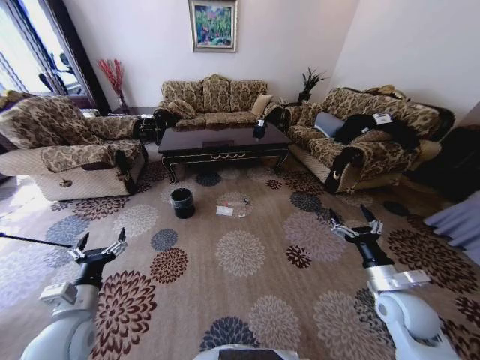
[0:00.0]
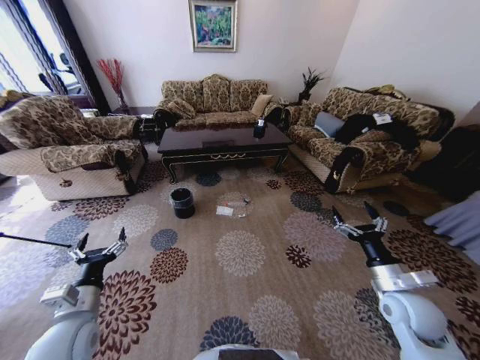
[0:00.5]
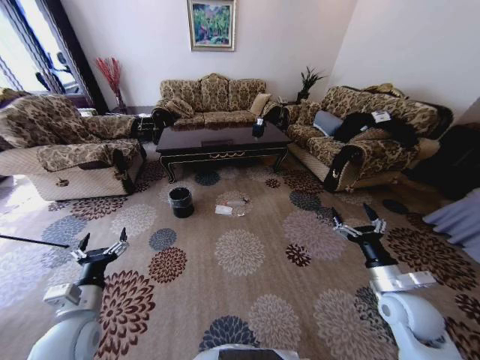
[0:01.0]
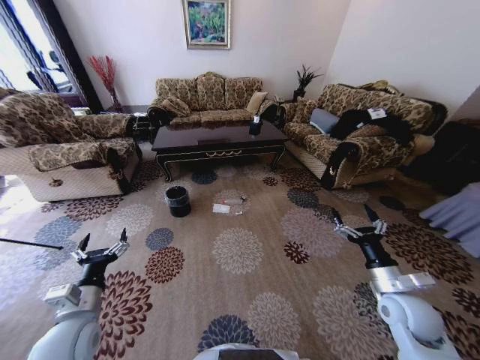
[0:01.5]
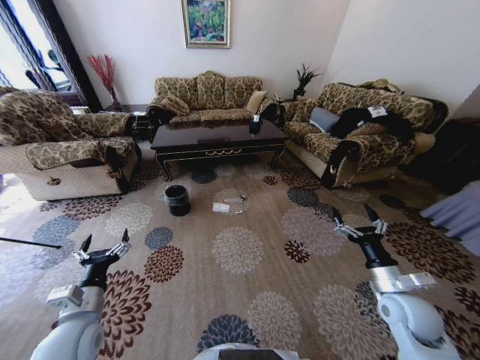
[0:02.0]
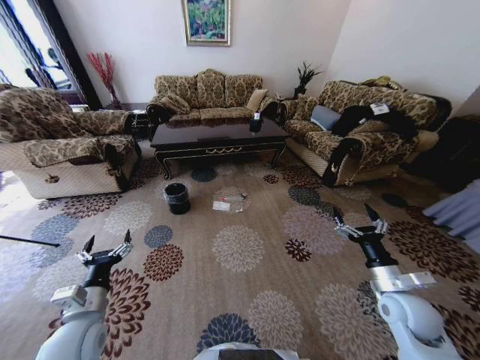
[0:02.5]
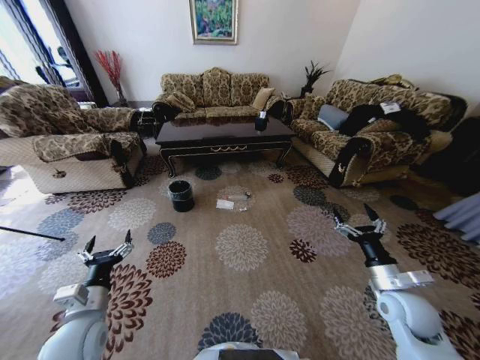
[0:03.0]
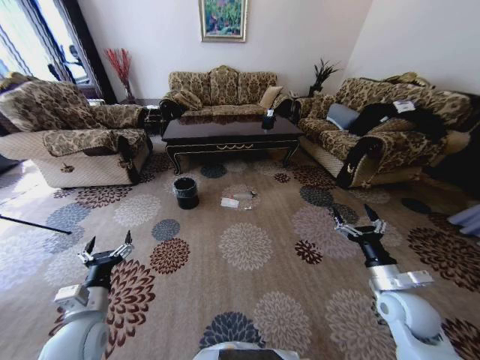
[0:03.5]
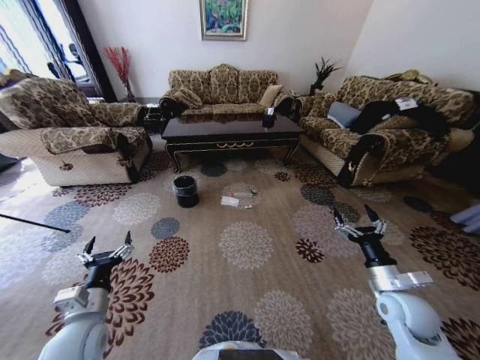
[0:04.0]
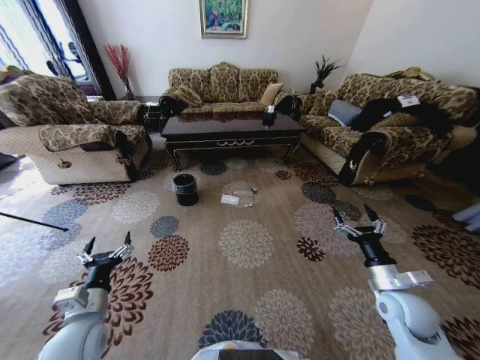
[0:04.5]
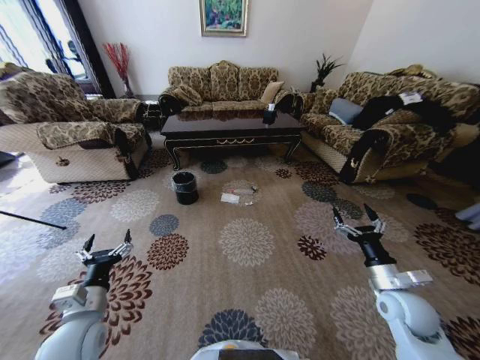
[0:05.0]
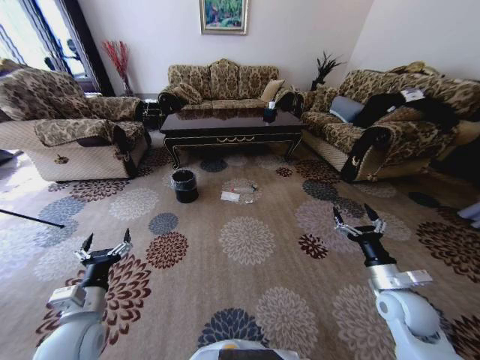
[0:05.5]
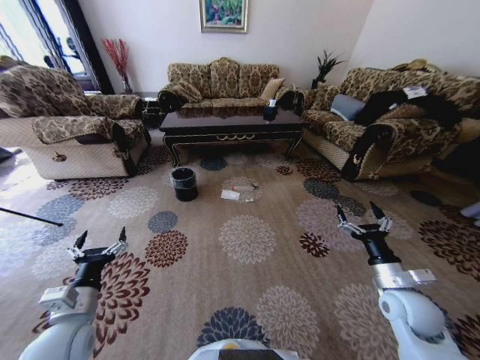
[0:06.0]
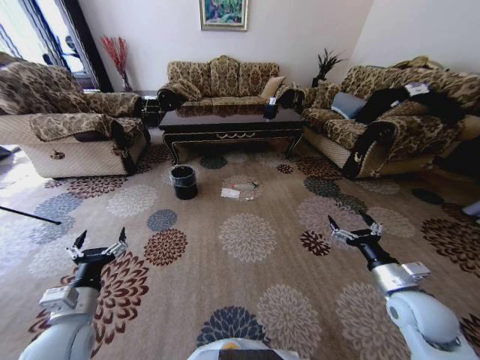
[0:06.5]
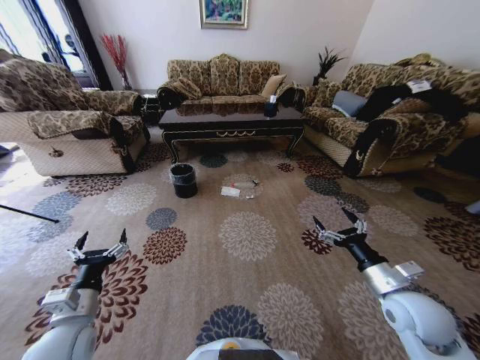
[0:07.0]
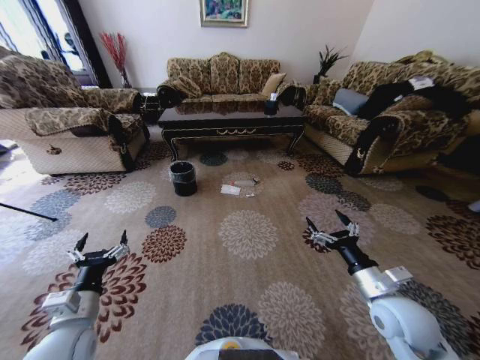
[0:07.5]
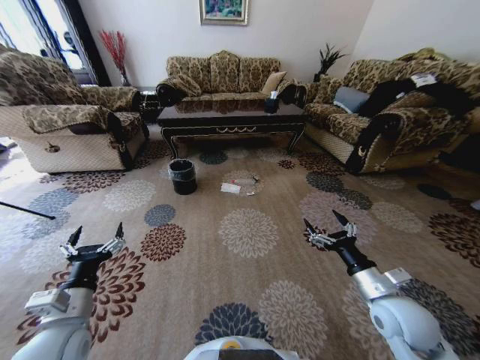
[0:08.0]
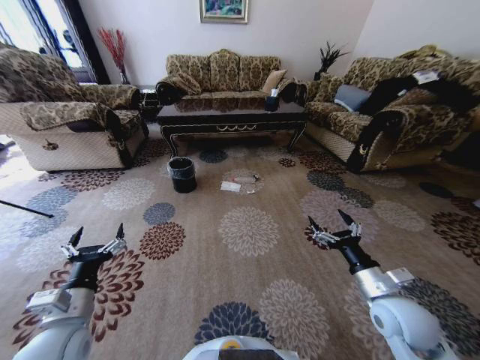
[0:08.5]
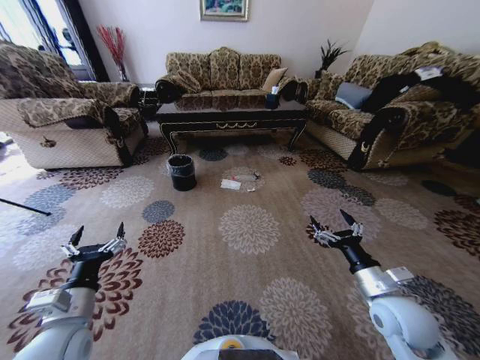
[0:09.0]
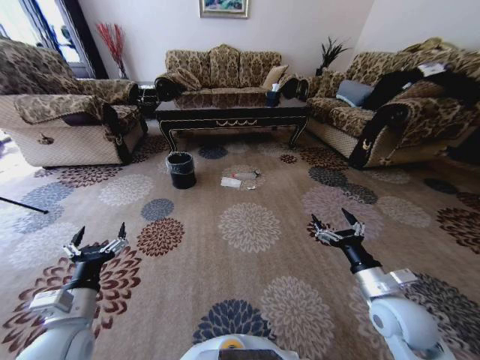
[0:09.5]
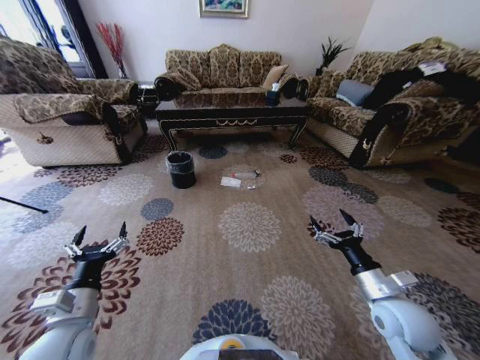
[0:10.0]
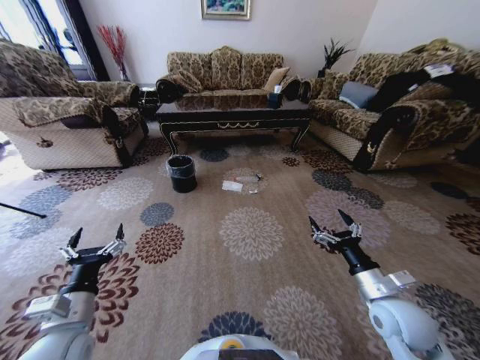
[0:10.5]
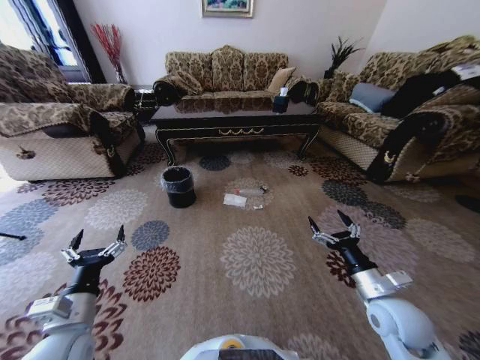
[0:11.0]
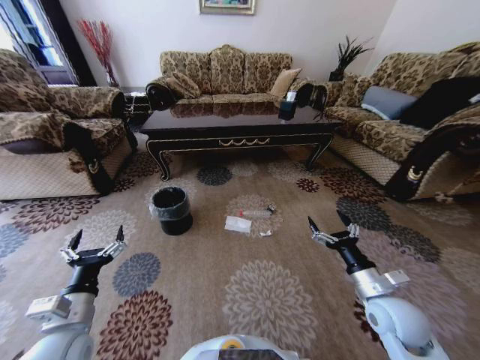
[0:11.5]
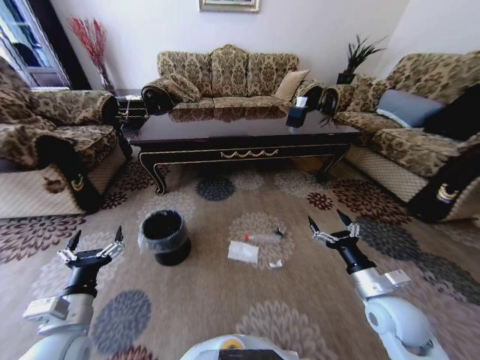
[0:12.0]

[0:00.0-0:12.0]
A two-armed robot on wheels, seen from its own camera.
Task of the whole recording: Move to the front of the table and pick up the trash from the floor, then place it into the trash bin.
0:06.0 to 0:08.0: The right gripper travels to the left by approximately 5 cm.

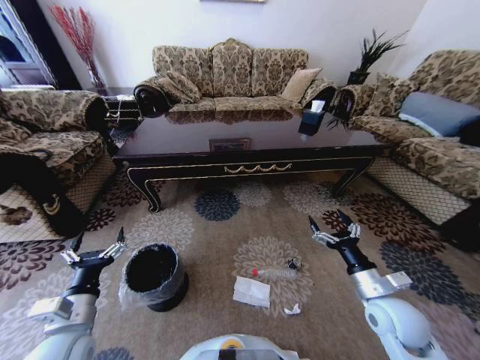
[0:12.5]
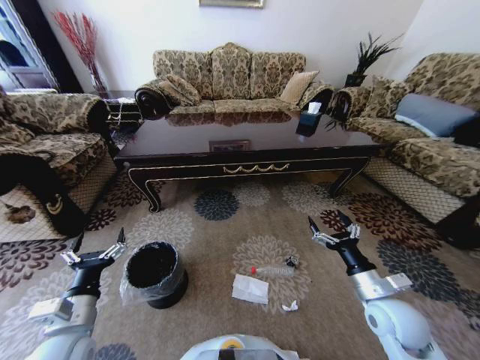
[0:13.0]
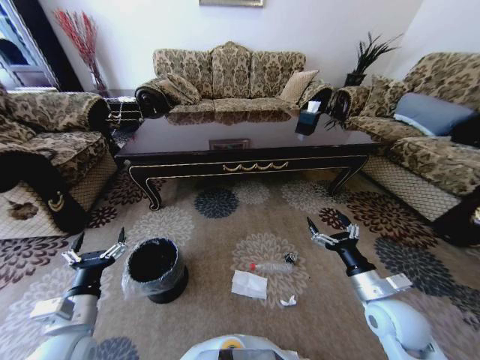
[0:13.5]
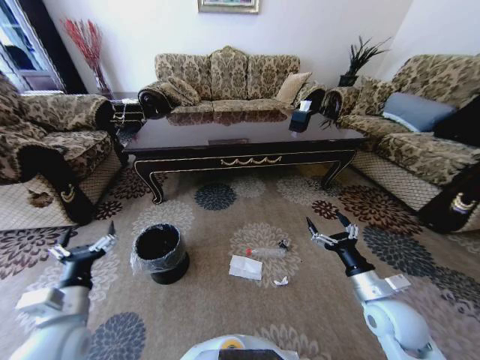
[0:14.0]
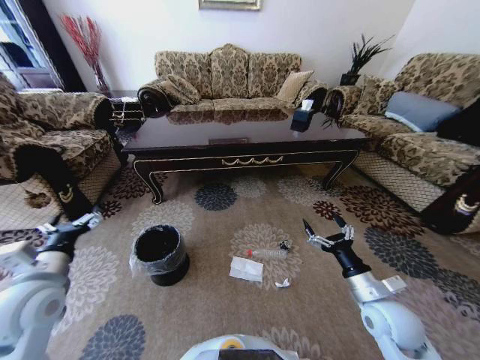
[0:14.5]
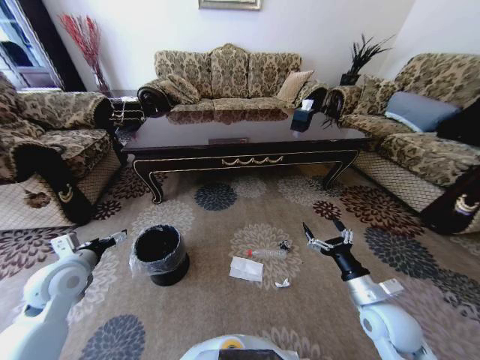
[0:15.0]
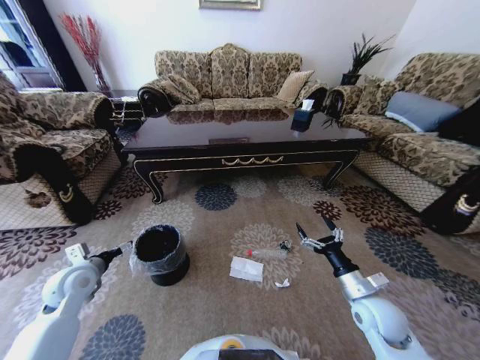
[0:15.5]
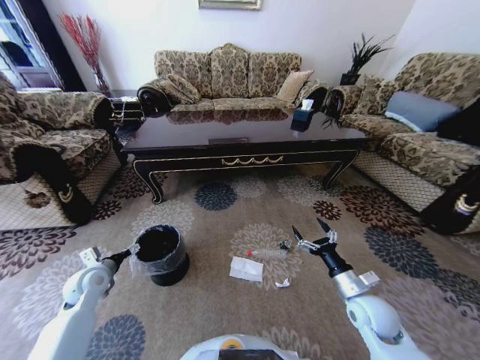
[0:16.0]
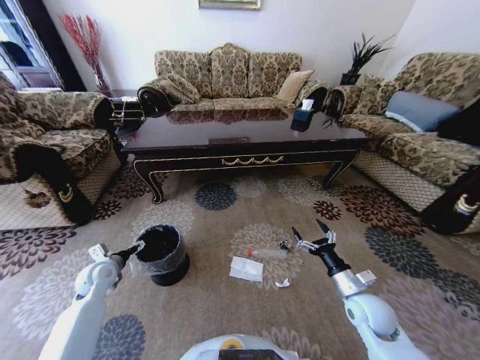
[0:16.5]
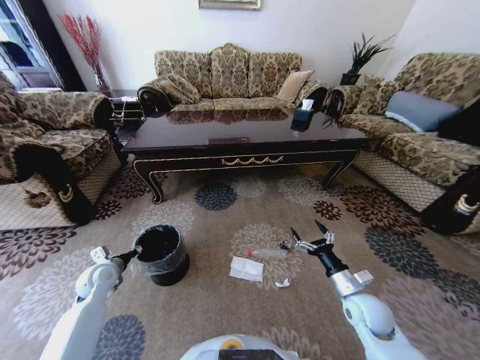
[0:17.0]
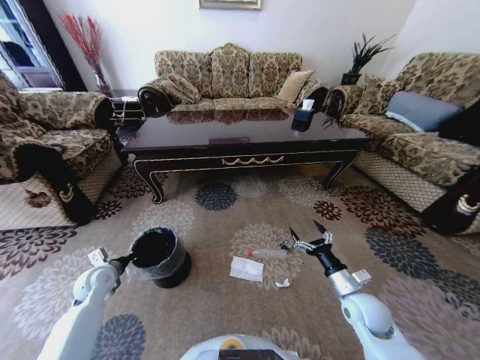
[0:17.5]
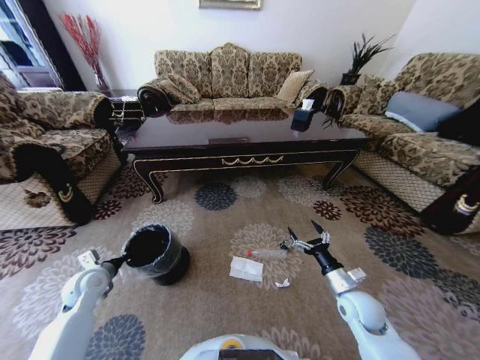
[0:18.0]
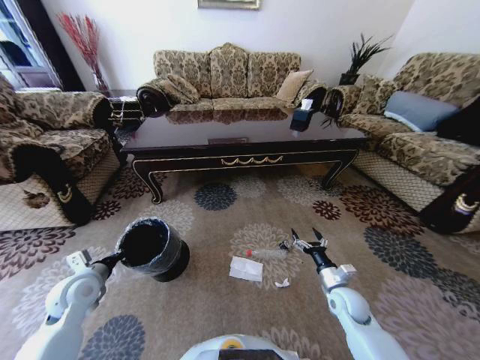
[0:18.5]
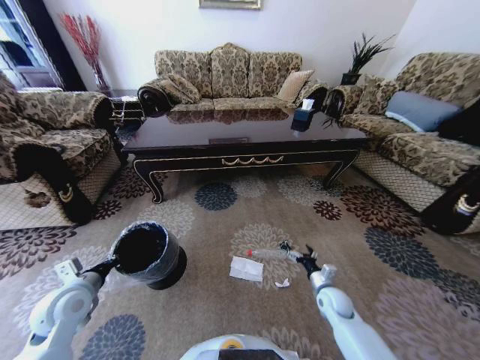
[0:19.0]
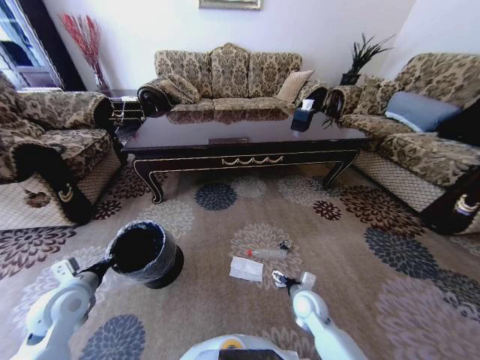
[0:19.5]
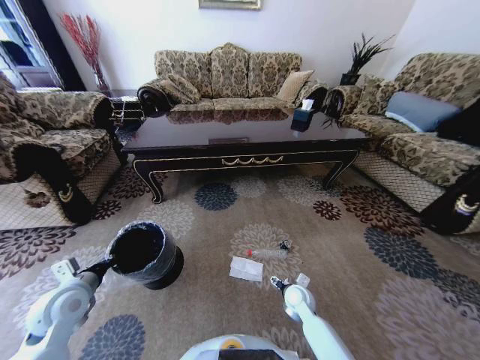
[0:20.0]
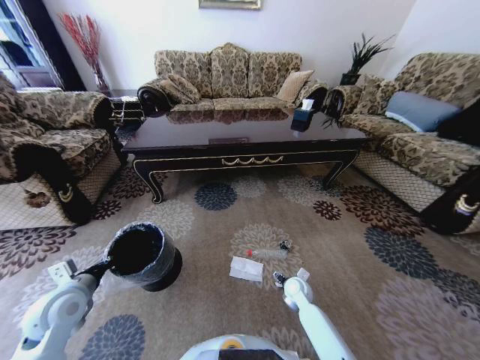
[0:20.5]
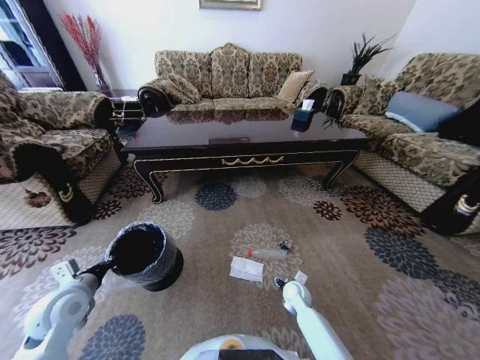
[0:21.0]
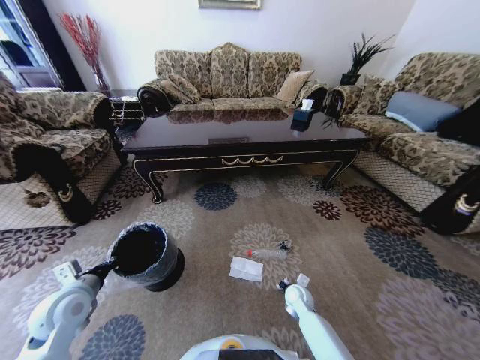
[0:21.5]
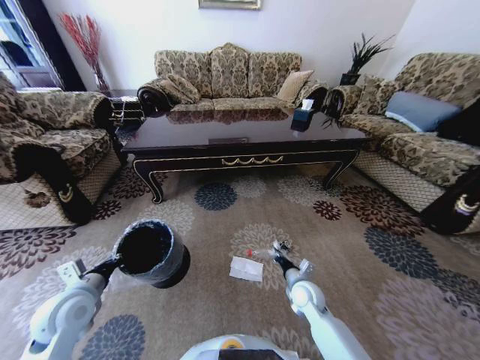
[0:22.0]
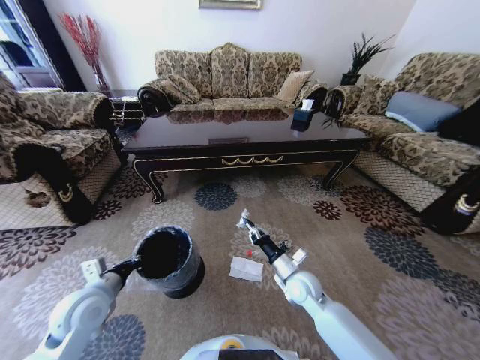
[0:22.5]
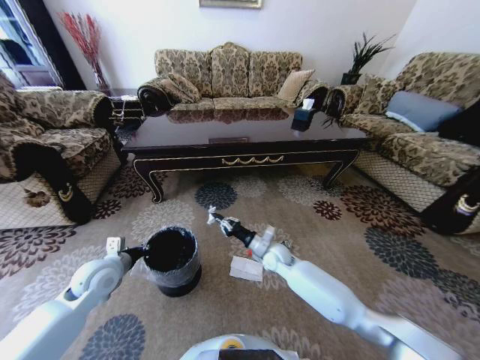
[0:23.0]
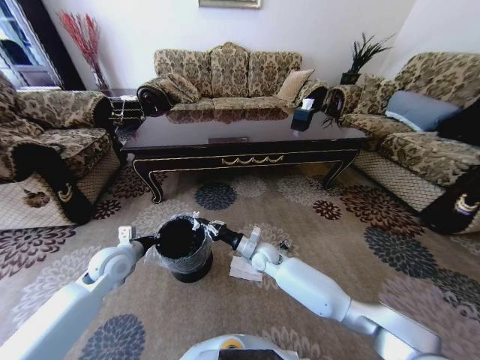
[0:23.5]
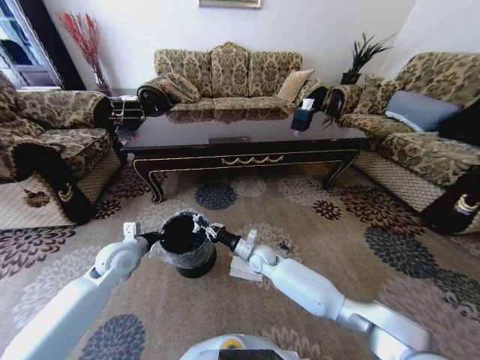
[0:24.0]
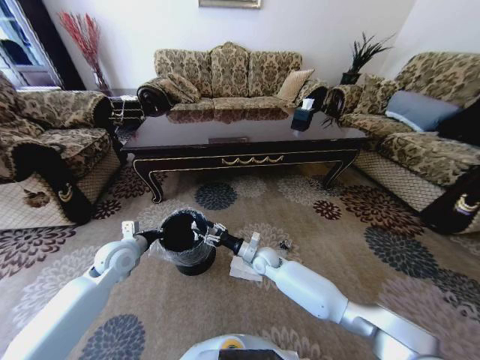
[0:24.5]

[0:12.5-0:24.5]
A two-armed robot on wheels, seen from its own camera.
Task of the whole recording: Move to the front of the table and pick up the trash from the floor, then place it into the trash bin.
0:12.5 to 0:14.5: The left gripper shifts roughly 10 cm upward, forward and to the left.
0:14.5 to 0:16.5: The left gripper heads downward and forward, covering some 20 cm, while the right gripper heads downward, covering some 5 cm.
0:16.5 to 0:18.5: The right gripper moves downward, approximately 5 cm, while the left gripper heads backward and upward, covering roughly 10 cm, and closes up.
0:18.5 to 0:20.5: The right gripper heads to the left, downward and forward, covering roughly 15 cm.
0:20.5 to 0:22.5: The left gripper travels to the right by some 5 cm, while the right gripper shifts approximately 15 cm upward, and closes.
0:22.5 to 0:24.5: The right gripper moves forward and to the left, about 15 cm, and opens; the left gripper shifts some 10 cm forward.

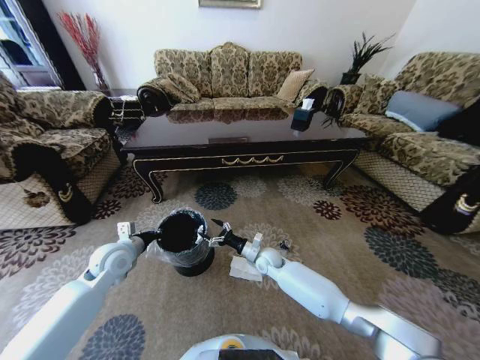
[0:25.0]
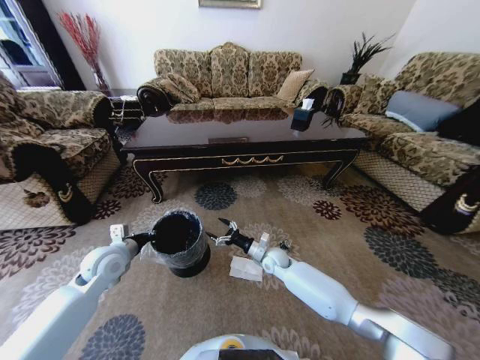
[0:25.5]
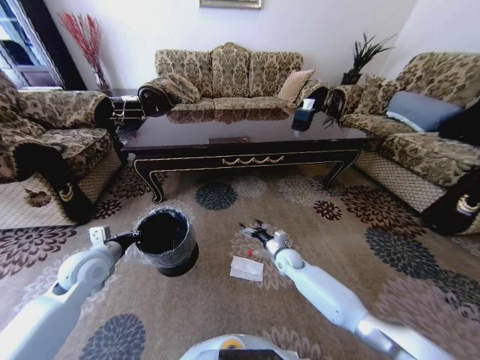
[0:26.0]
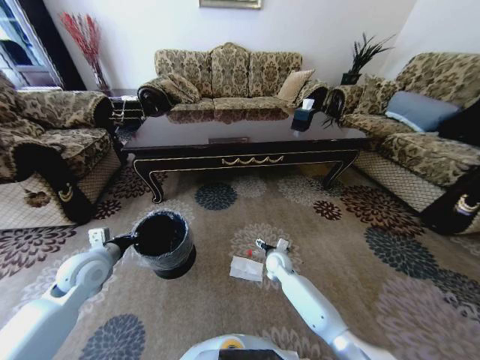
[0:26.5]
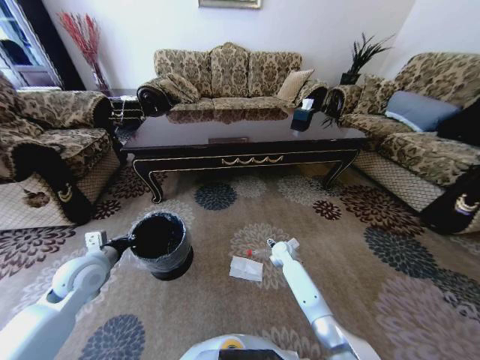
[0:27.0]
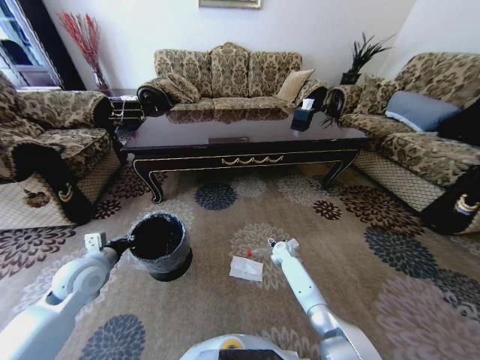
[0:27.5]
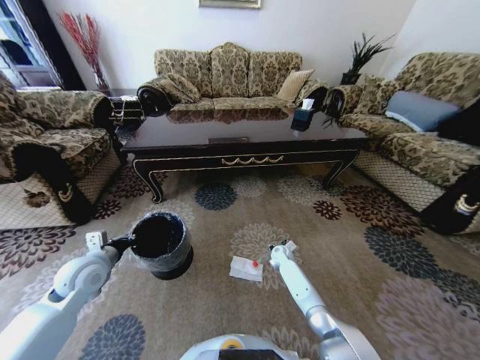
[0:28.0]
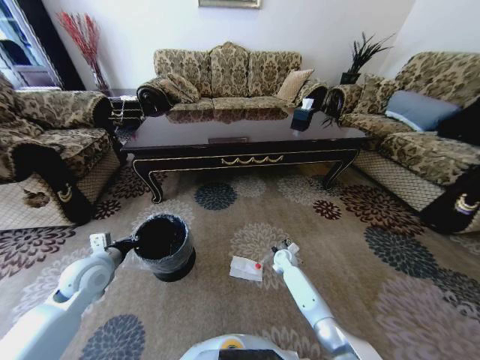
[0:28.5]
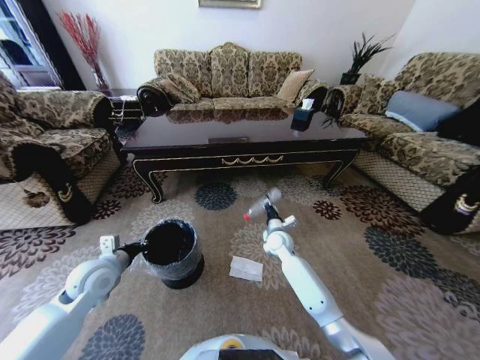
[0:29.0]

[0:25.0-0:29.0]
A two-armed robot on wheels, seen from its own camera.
Task of the whole recording: Move to the front of the table and pick up the trash from the floor, then place it into the trash bin.
0:25.0 to 0:27.0: The left gripper moves roughly 5 cm. The right gripper goes left and right, approximately 10 cm each way, reversing 2 times.
0:27.0 to 0:29.0: The right gripper moves upward, roughly 10 cm, and closes its fingers.
